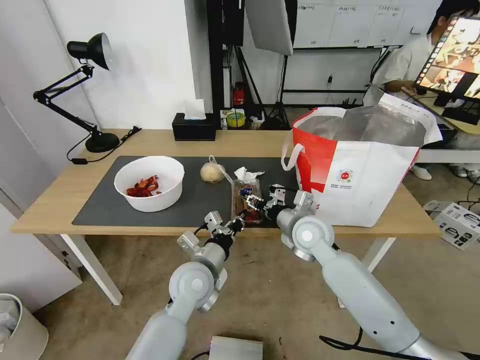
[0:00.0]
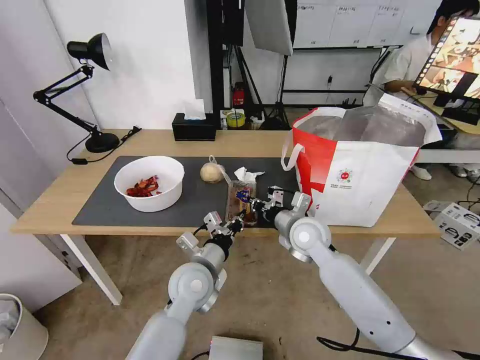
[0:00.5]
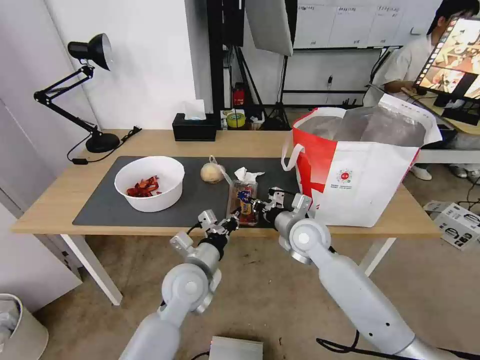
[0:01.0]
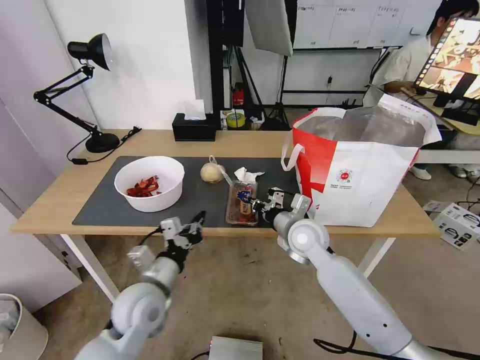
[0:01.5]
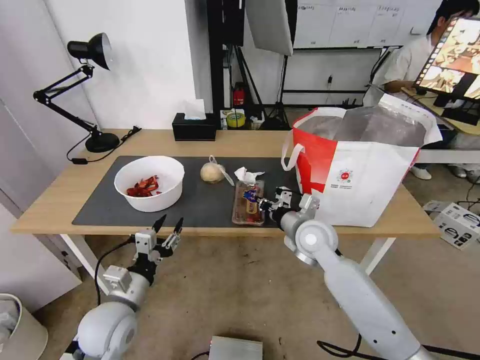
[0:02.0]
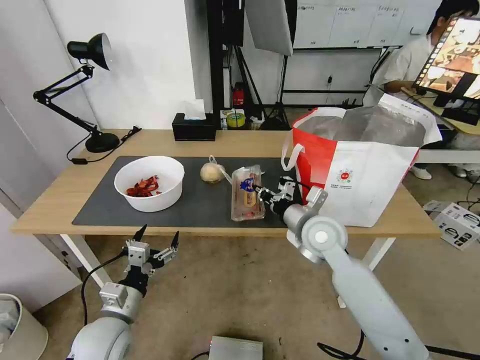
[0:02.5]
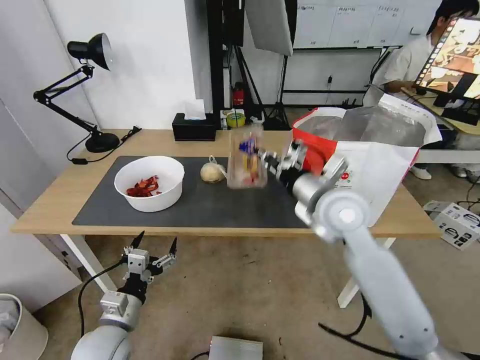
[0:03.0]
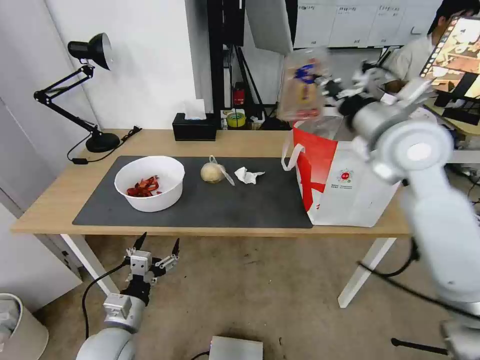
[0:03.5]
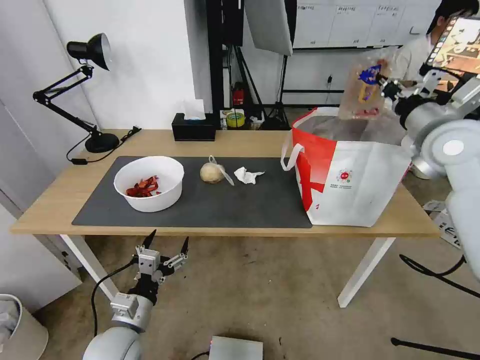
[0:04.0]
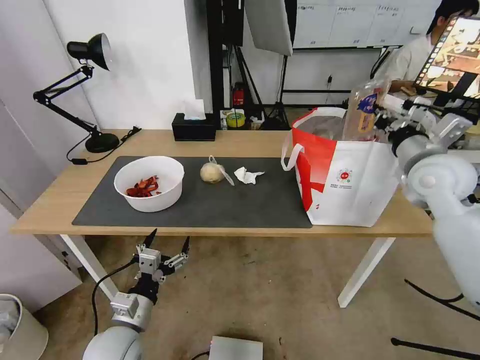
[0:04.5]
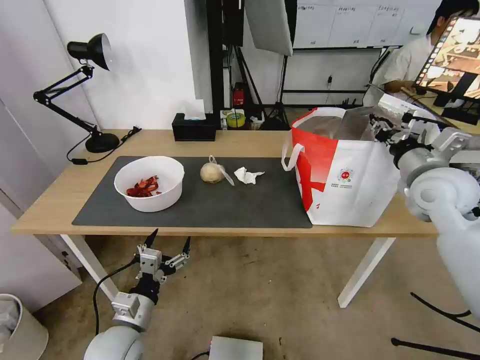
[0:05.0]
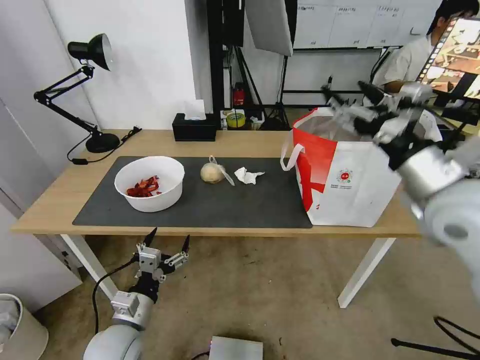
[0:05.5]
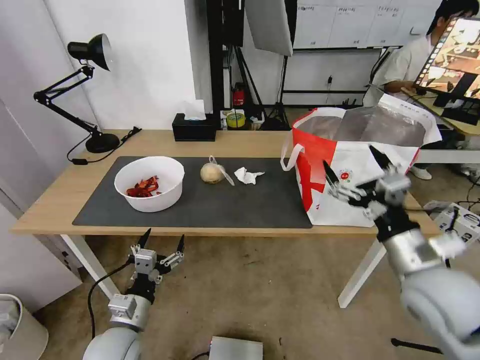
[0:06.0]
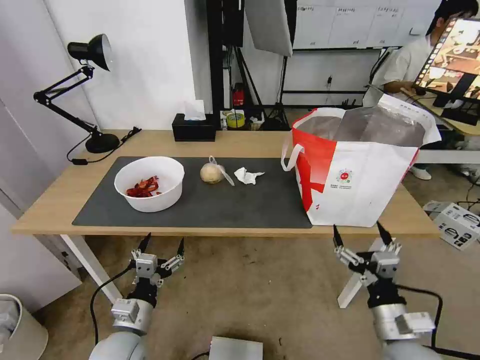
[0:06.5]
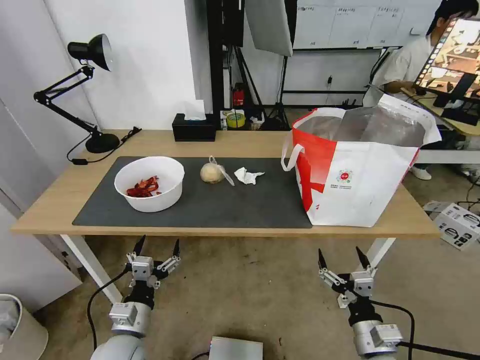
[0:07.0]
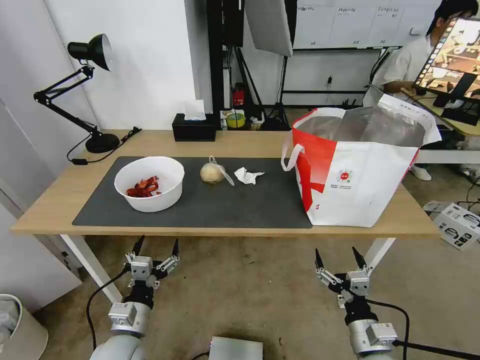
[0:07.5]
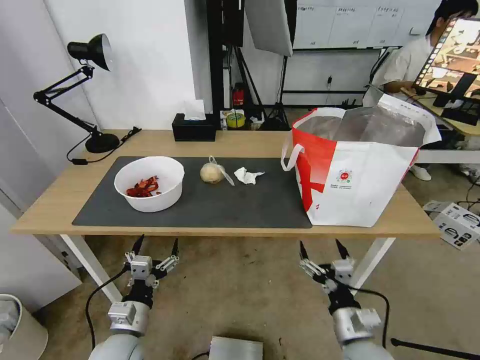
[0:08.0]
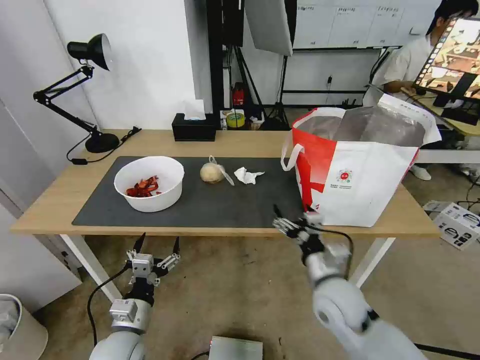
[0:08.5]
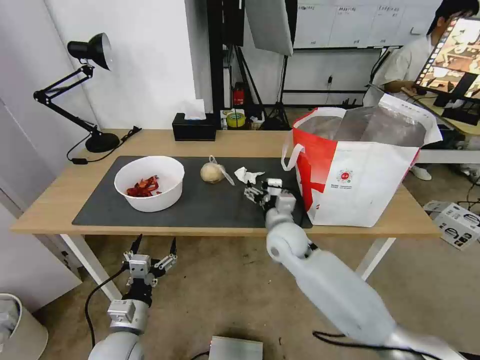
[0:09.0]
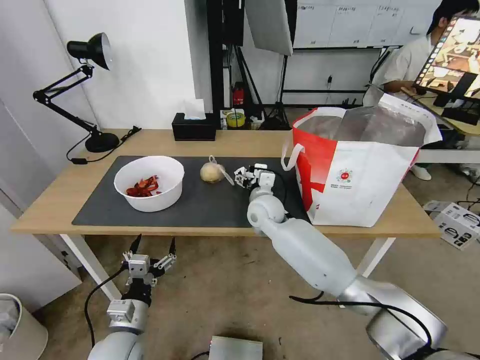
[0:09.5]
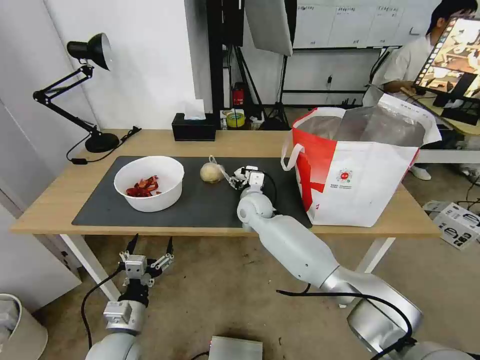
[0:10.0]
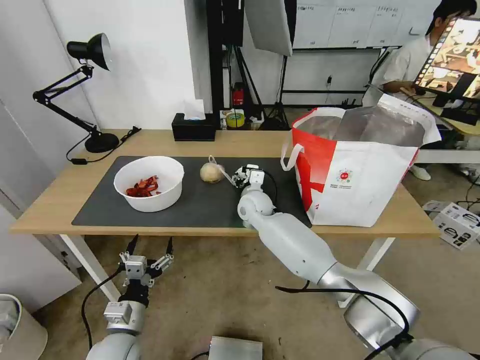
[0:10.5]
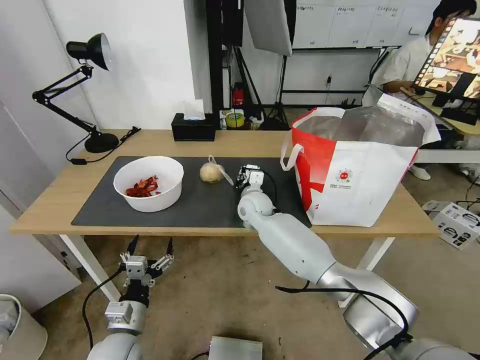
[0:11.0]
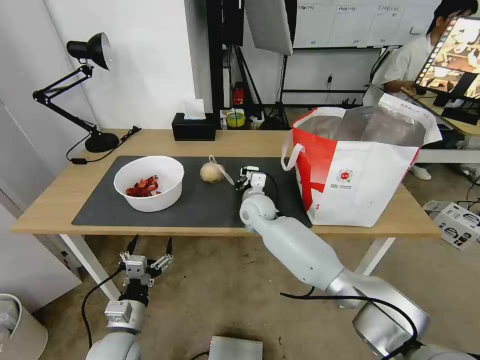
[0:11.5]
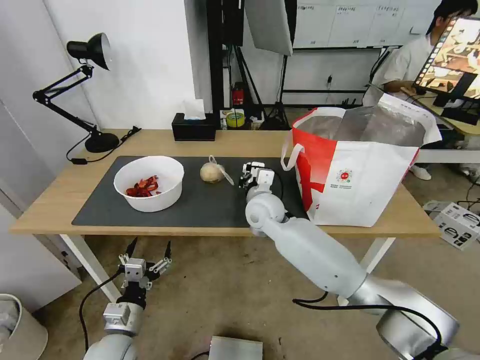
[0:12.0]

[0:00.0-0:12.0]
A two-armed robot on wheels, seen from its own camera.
Task of the whole recording: Pick up the trash from the table and place it into the takeout bag.
0:00.0 to 0:02.0: The left gripper goes about 15 cm to the left and backward, and opens up. Meanwhile the right gripper closes.
0:02.0 to 0:04.0: The left gripper ends up roughly 5 cm from where it was, and opens; the right gripper is displaced upward and to the right by some 30 cm.
0:04.0 to 0:06.0: The right gripper travels backward and downward by approximately 25 cm, and opens its fingers.
0:06.0 to 0:08.0: The right gripper shifts roughly 20 cm downward.
0:08.0 to 0:10.0: The right gripper moves forward and to the left, about 40 cm.
0:10.0 to 0:12.0: The right gripper moves roughly 5 cm, and closes.

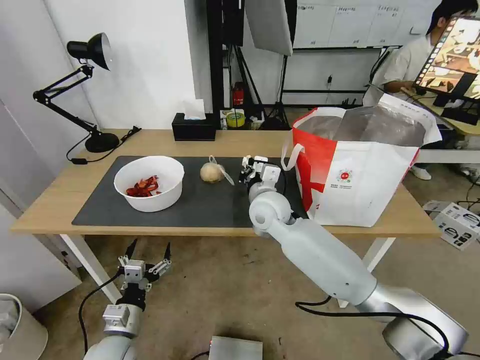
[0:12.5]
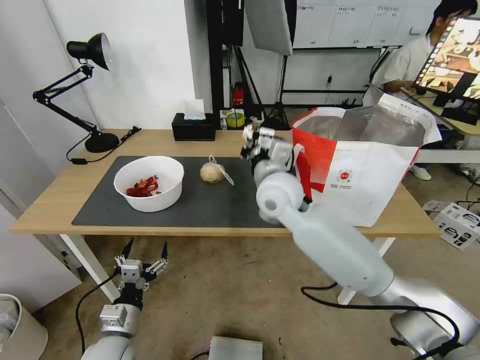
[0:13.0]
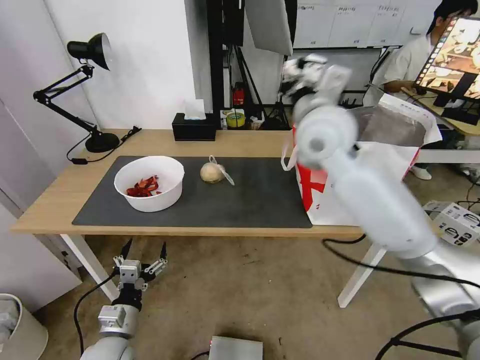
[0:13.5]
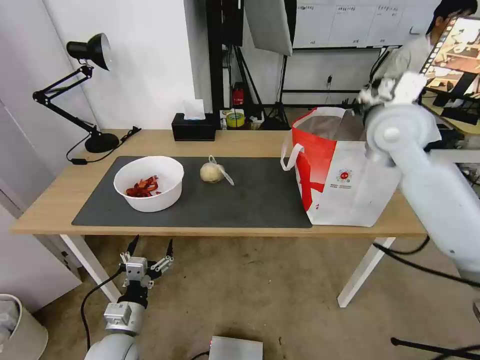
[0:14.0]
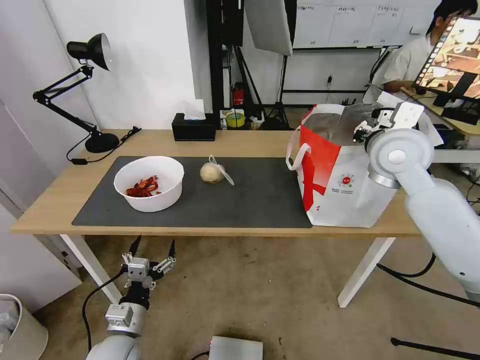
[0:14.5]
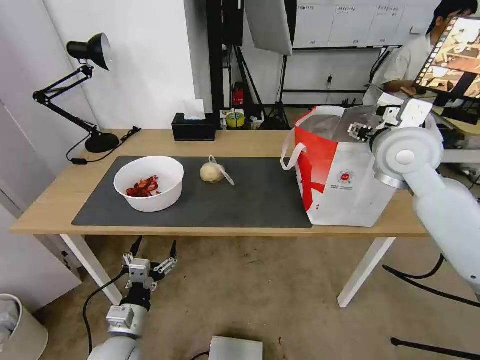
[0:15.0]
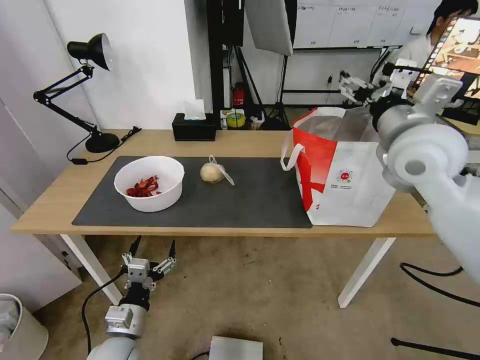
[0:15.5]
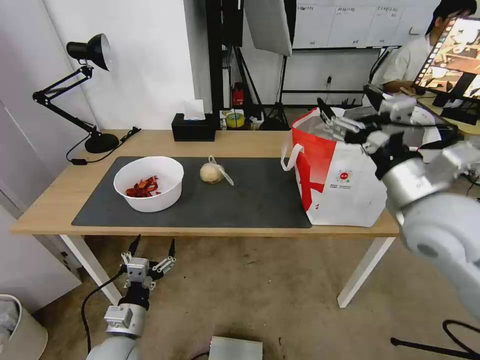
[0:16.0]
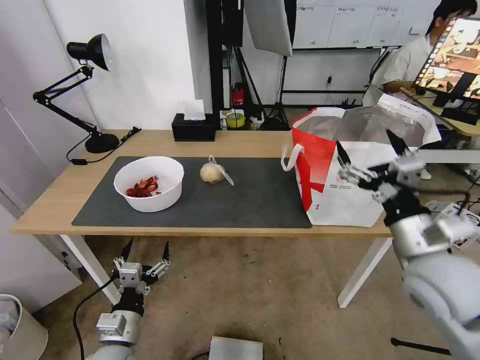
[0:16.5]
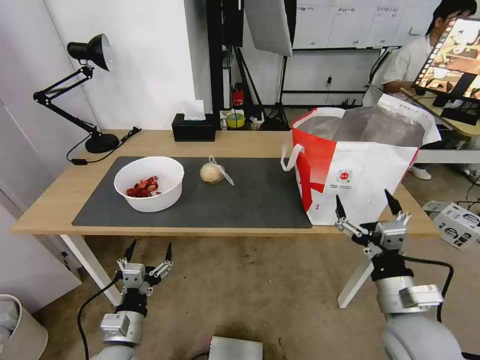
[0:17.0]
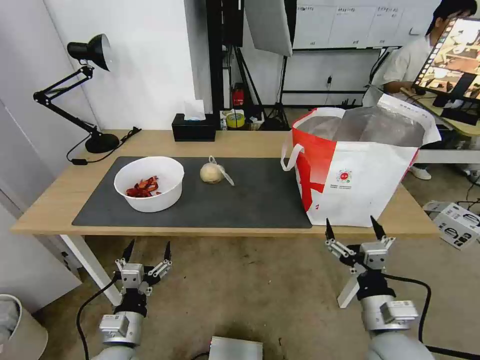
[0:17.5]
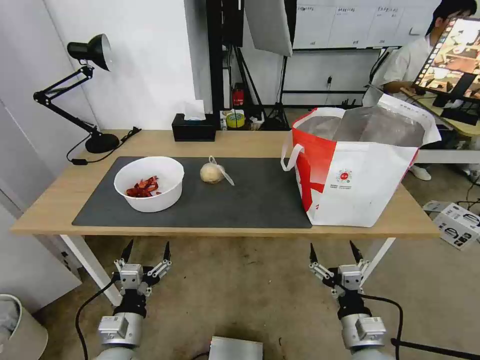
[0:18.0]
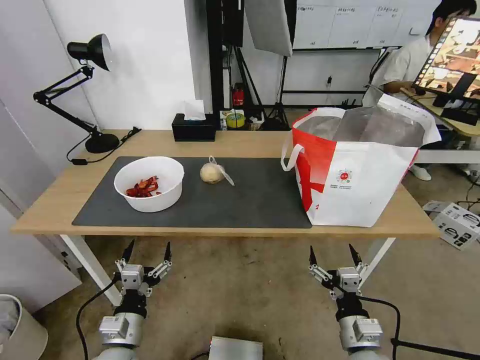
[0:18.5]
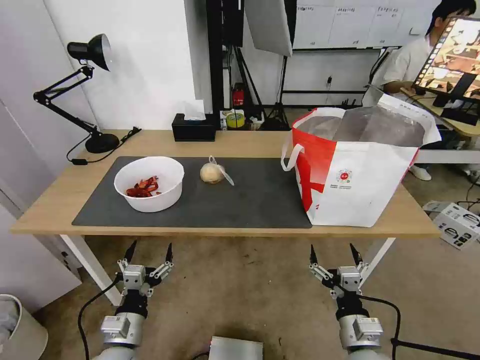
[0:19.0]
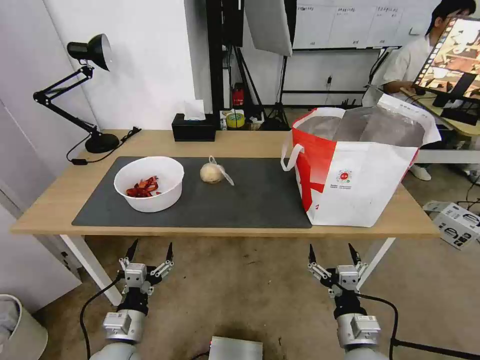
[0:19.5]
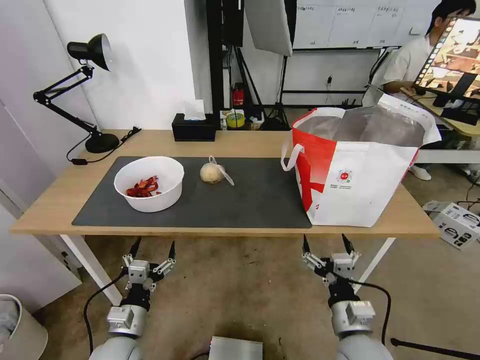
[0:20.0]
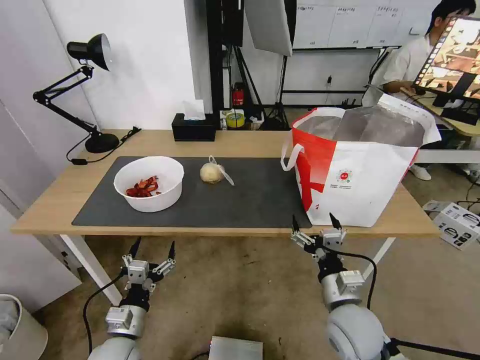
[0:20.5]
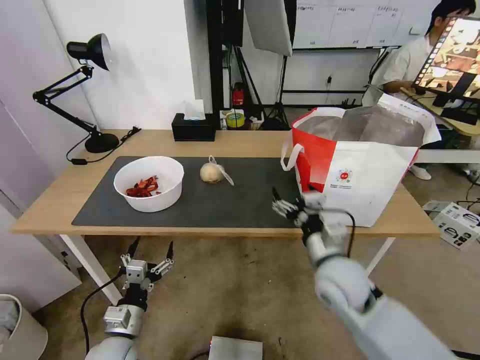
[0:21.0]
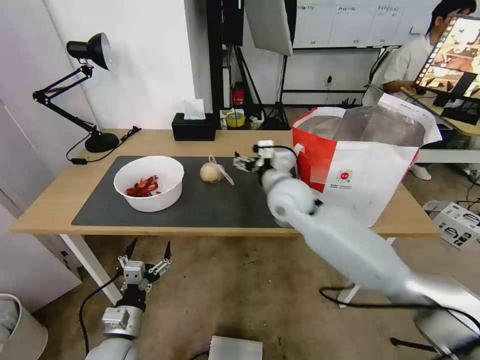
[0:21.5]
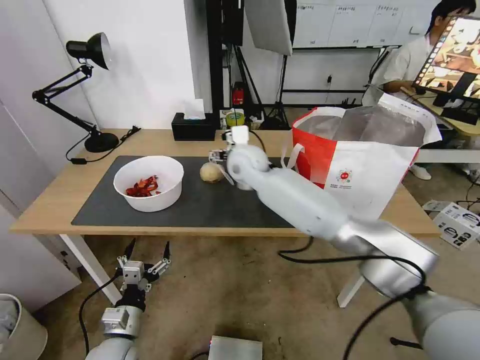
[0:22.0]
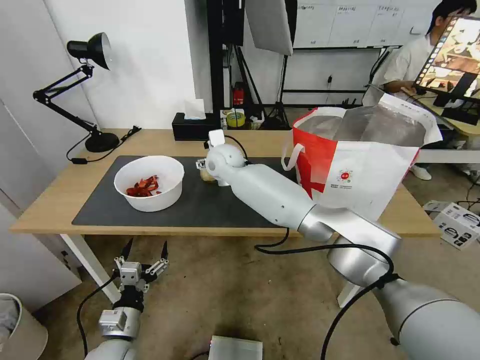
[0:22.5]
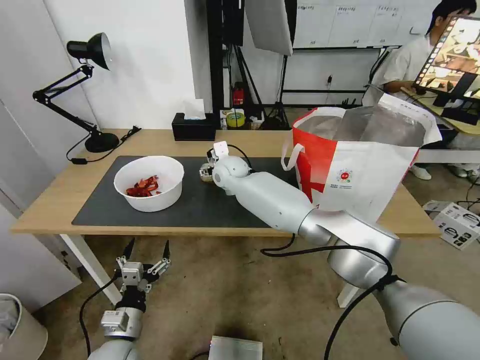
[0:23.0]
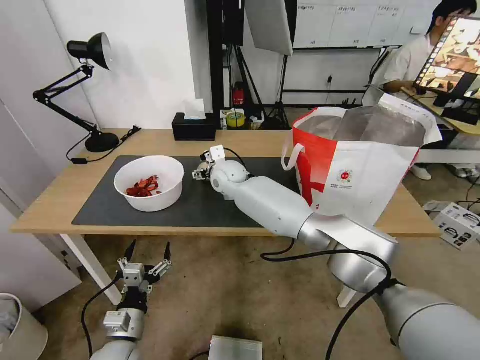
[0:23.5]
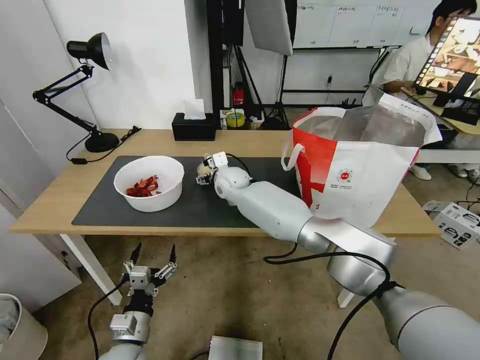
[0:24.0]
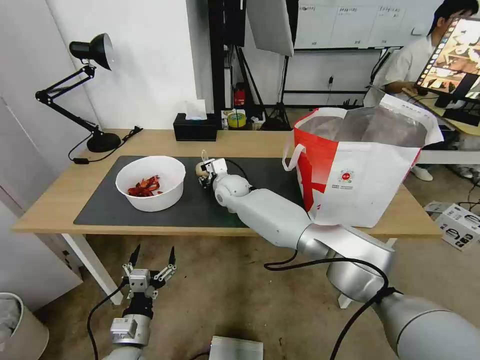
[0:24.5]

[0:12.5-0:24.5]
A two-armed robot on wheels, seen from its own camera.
Task of the whole recording: Pick up the trash from the table and place it into the takeout bag.
0:12.5 to 0:14.5: The right gripper travels to the right and upward by roughly 30 cm.
0:14.5 to 0:16.5: The right gripper travels backward and downward by roughly 20 cm, and opens up.
0:16.5 to 0:18.5: The right gripper goes approximately 25 cm downward and backward.
0:18.5 to 0:20.5: The right gripper heads forward and upward, covering some 10 cm.
0:20.5 to 0:22.5: The right gripper travels forward, to the left and upward by approximately 50 cm.
0:22.5 to 0:24.5: The right gripper travels downward by some 10 cm, and closes its fingers.

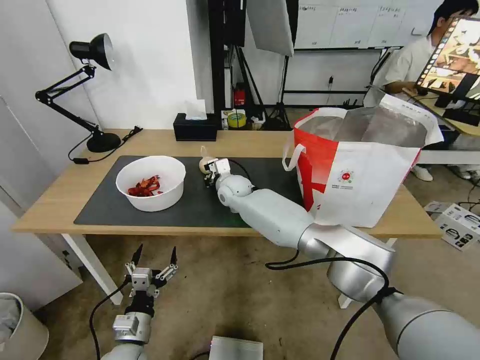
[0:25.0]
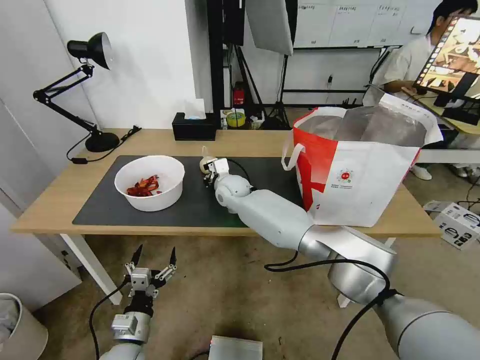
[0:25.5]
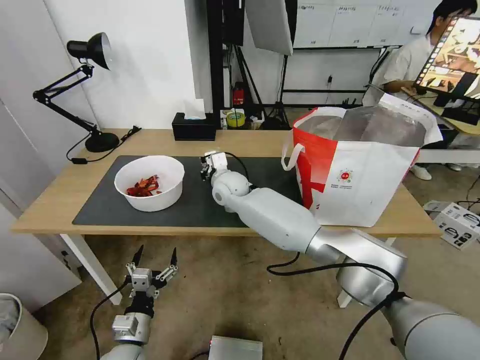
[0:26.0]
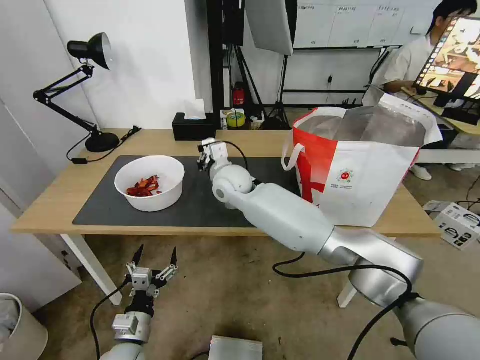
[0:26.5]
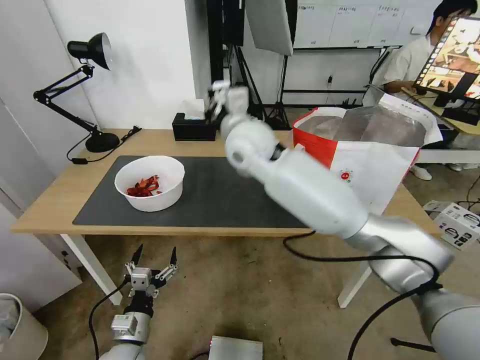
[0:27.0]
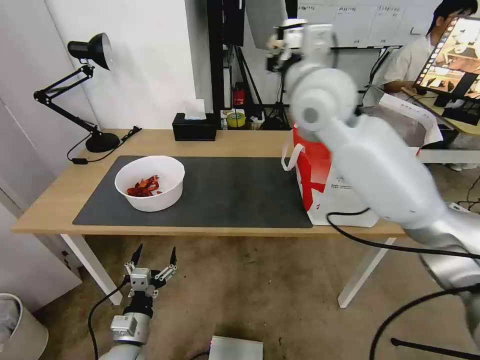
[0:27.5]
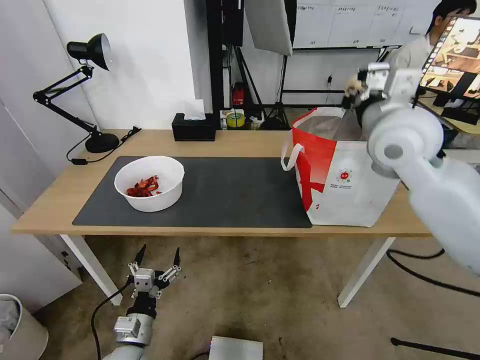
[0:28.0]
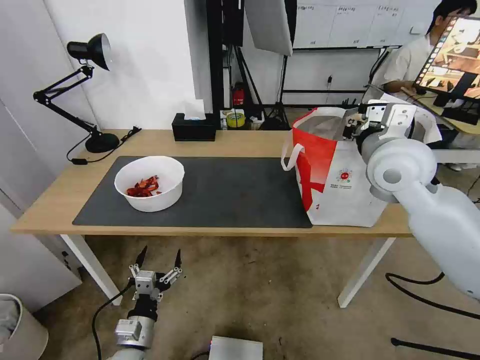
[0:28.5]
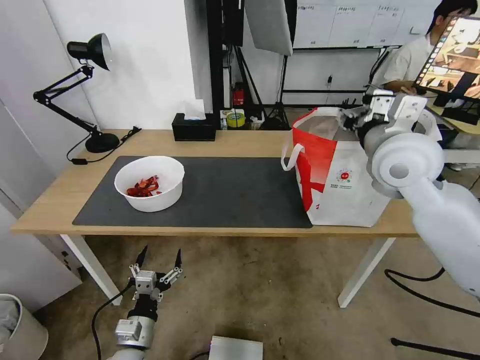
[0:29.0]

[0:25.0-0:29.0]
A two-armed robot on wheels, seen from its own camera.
Task of the whole recording: Pick up the trash from the table and place it into the takeout bag.
0:25.0 to 0:27.0: The right gripper moves upward, roughly 25 cm.
0:27.0 to 0:29.0: The right gripper shifts roughly 25 cm to the right, and opens up.
